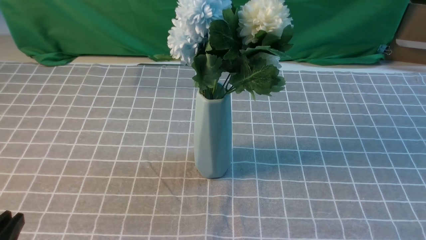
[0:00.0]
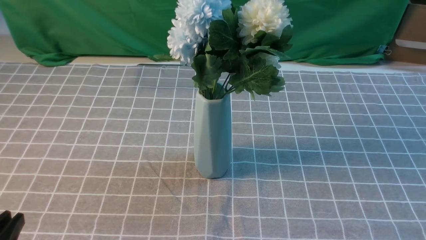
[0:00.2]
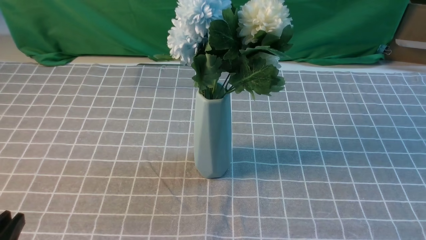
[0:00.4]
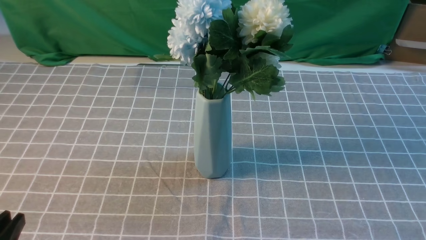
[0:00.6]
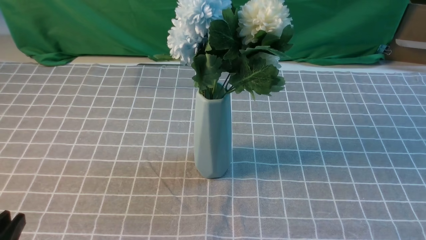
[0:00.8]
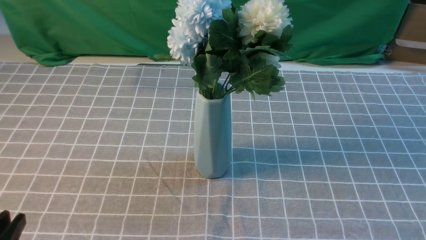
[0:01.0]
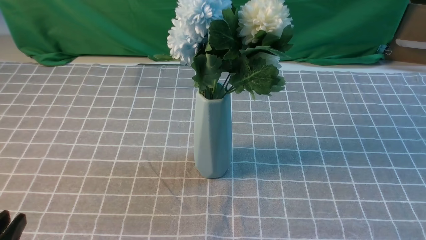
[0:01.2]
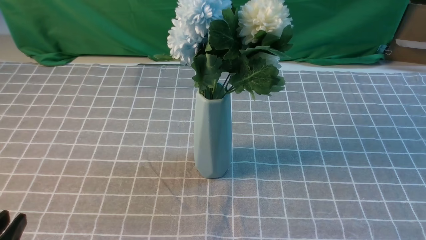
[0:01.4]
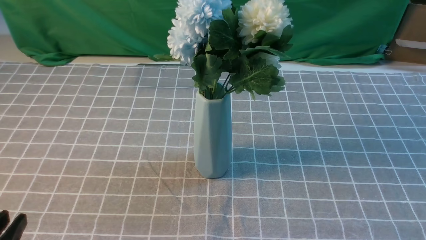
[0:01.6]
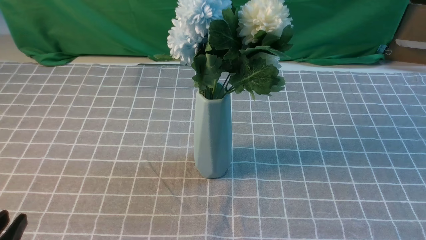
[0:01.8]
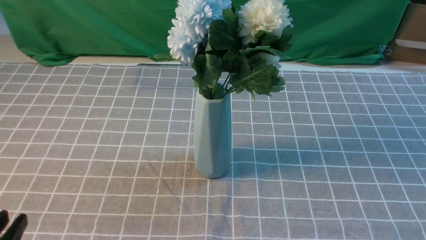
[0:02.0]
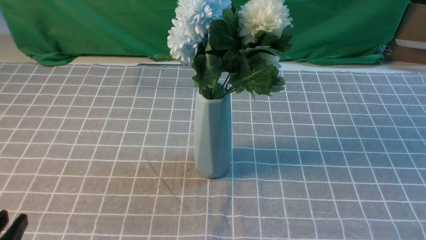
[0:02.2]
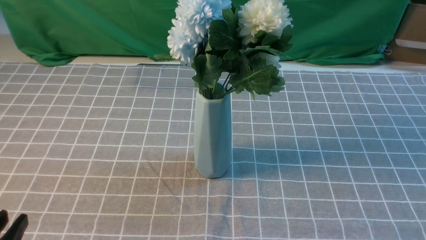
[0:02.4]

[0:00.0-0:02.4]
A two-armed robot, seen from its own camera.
Task of the whole recording: insert the flowers into the vase on the table with the grey tablecloth.
0:01.2 to 0:02.4: Neither gripper changes place.
